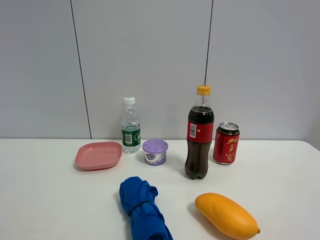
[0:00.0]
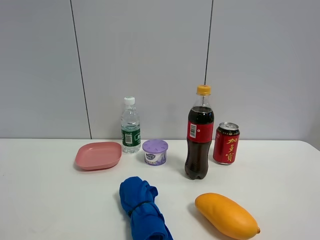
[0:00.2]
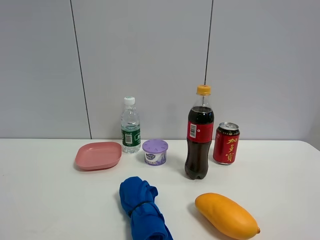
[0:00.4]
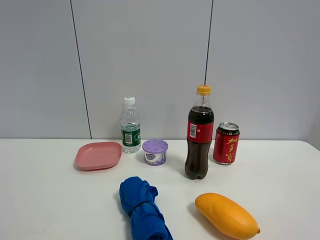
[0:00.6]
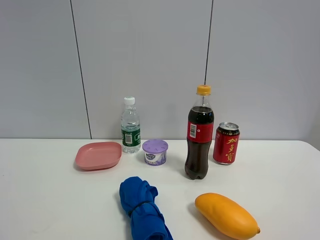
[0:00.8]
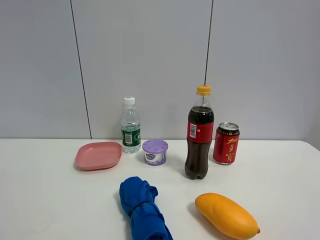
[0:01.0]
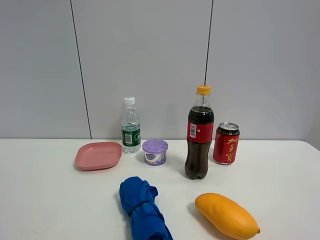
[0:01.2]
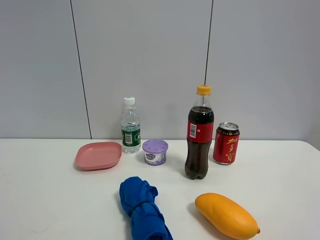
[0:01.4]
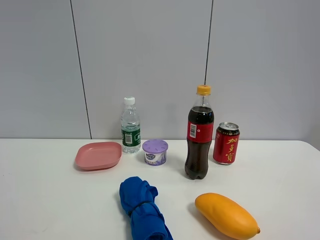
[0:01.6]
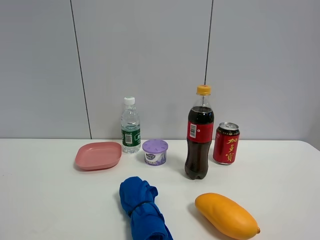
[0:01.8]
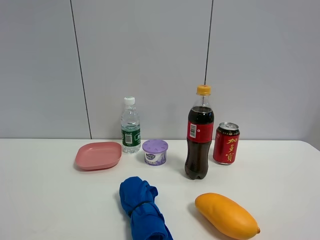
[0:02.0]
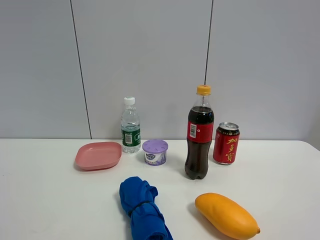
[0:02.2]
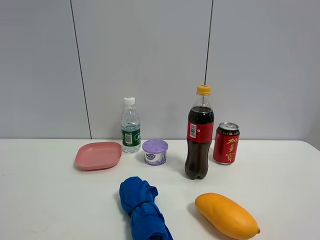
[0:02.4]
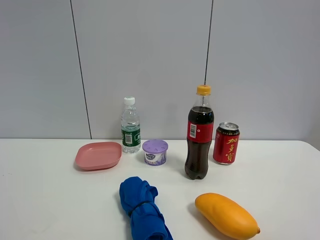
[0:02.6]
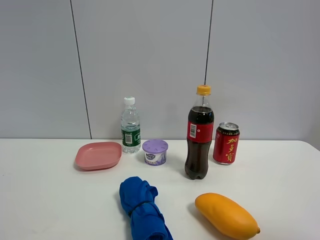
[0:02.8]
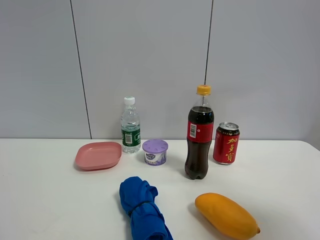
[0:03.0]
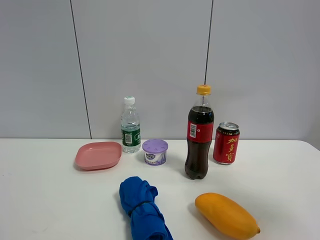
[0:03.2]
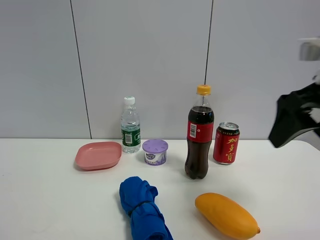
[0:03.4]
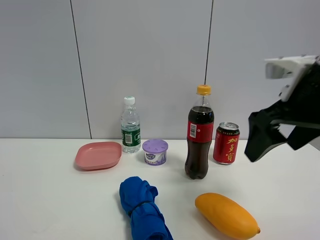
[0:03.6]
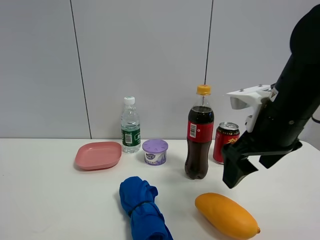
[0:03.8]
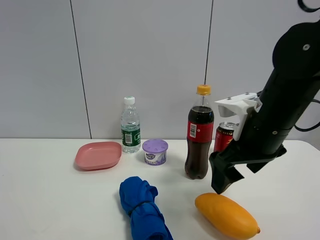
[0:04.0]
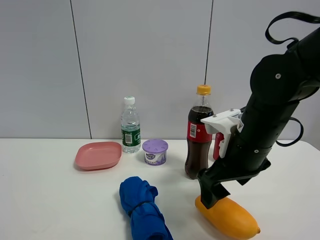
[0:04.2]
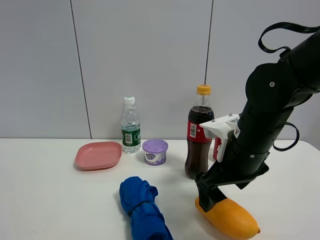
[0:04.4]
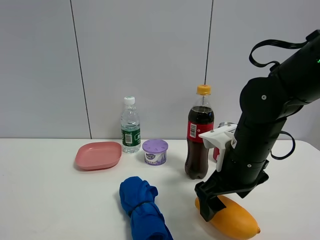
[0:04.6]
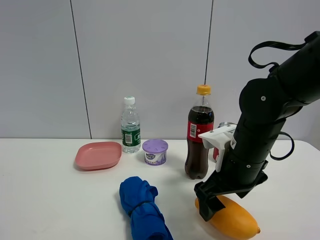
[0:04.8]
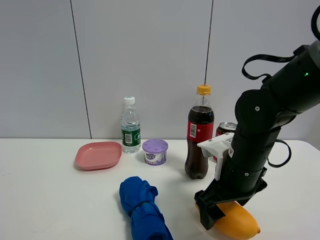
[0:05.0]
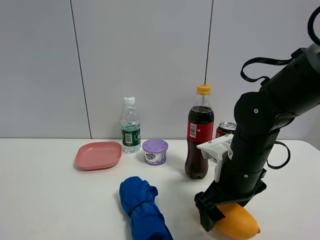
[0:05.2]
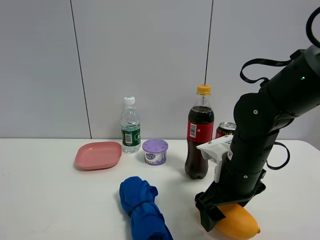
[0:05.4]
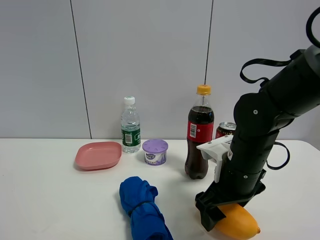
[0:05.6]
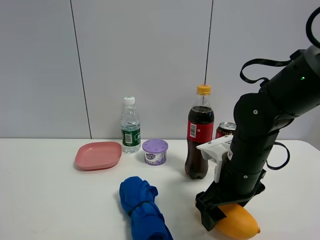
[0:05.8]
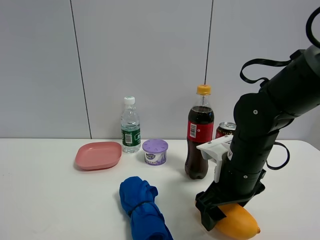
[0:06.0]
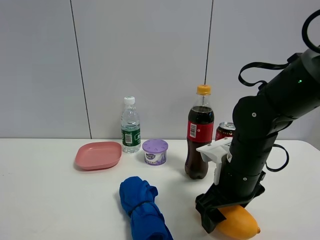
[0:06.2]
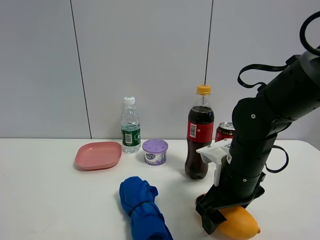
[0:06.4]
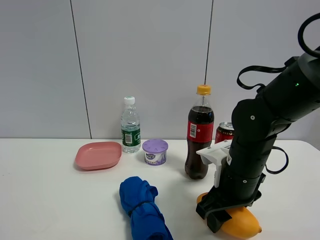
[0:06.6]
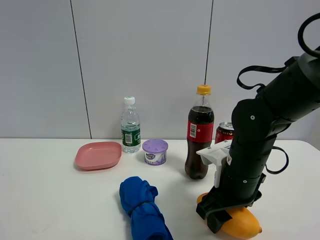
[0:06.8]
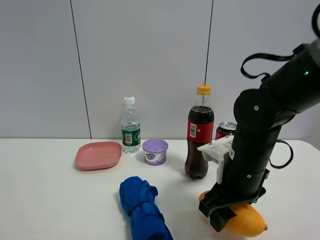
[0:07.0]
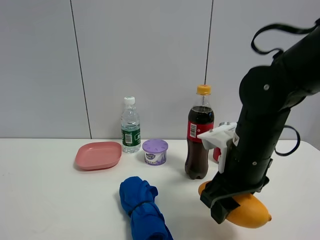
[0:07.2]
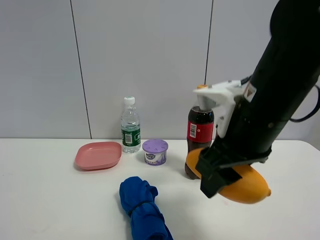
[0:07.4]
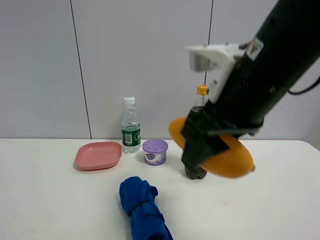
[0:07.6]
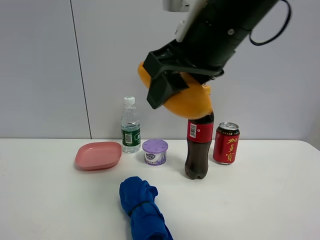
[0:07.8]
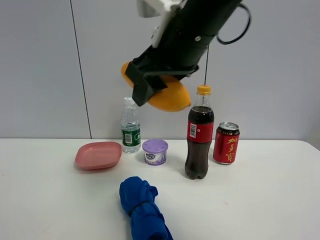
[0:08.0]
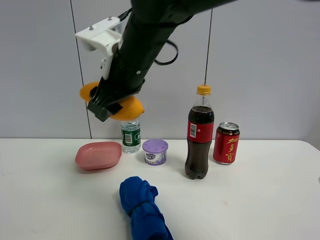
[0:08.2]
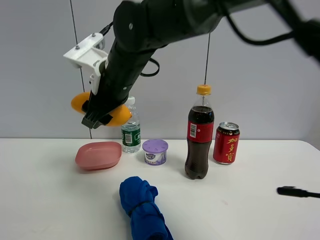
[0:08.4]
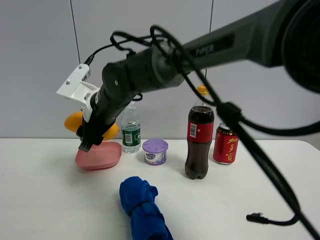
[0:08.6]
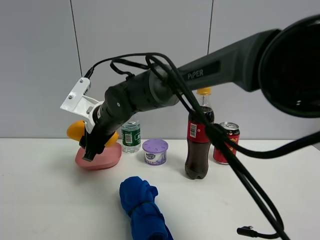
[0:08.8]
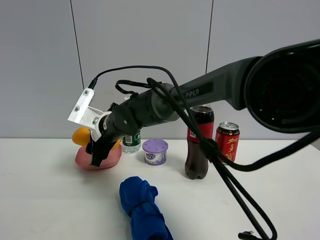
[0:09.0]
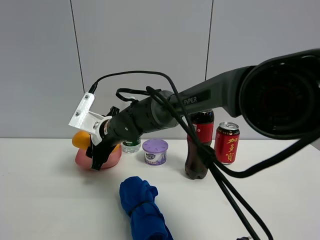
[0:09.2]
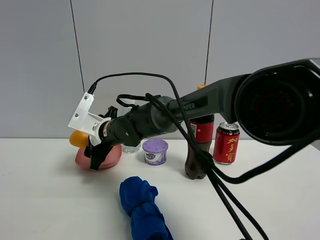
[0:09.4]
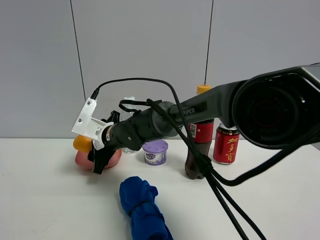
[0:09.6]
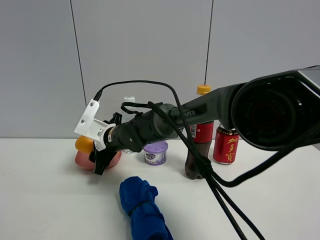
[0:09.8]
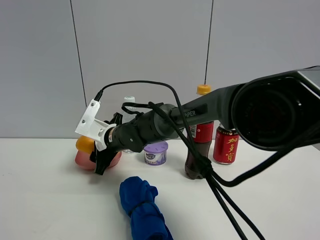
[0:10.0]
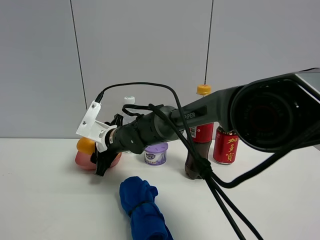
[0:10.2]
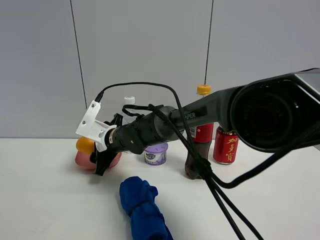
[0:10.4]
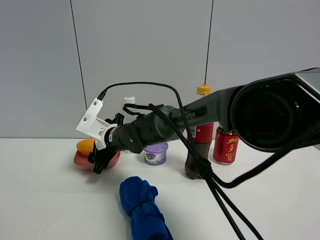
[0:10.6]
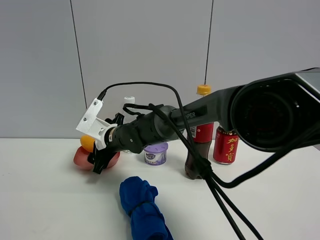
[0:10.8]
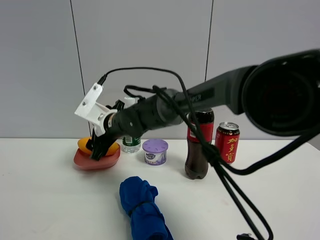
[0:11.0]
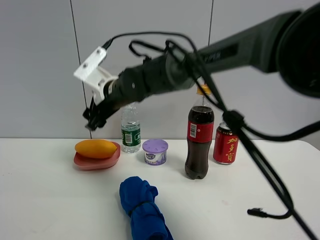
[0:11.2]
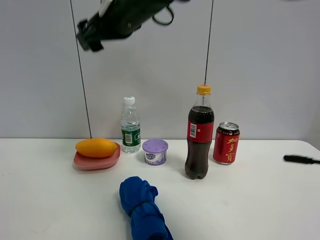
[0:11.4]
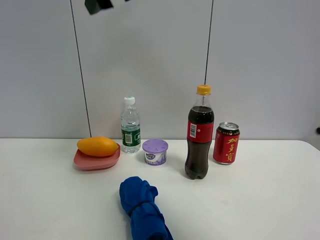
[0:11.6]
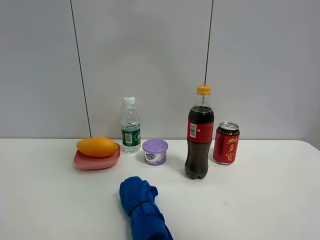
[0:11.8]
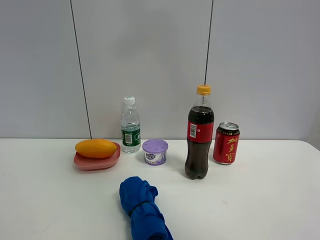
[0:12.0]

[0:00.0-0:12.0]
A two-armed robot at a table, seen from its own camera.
Task of the whole recording: the gripper move the object.
Step, 0.0 to 6.6 s: Grasp the mango with the right gripper.
Step, 6.8 to 10.8 s: Place the mango into the pink plate with the right gripper.
0.0 to 1.6 s: Both grippers stay put.
1.6 to 3.0 s: The right gripper goes some 15 cm forward and upward.
3.0 to 4.4 s: The right gripper goes some 30 cm downward, to the left and forward.
4.4 to 6.0 s: The grippers stay close to where they were, moving slightly.
6.0 to 7.6 s: The right gripper goes approximately 20 cm upward and backward, and closes its fingers.
7.6 to 9.0 s: The right gripper is displaced forward, to the left and downward by approximately 30 cm.
10.4 to 12.0 s: The right gripper heads upward, to the right and backward, covering about 50 cm, and opens.

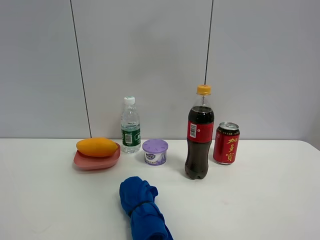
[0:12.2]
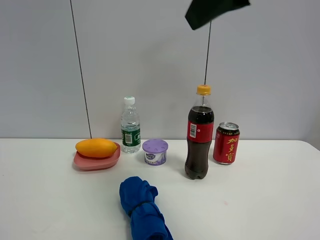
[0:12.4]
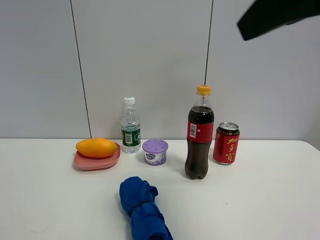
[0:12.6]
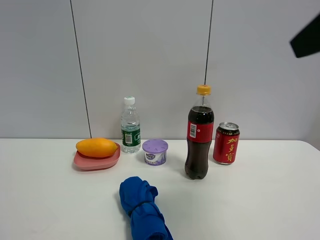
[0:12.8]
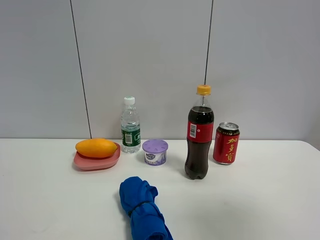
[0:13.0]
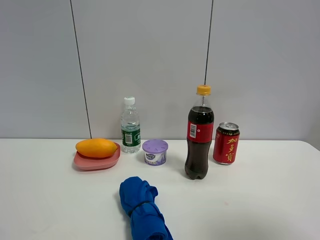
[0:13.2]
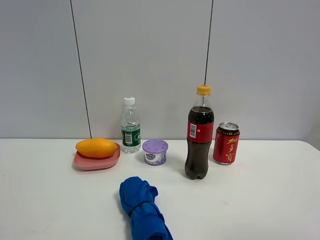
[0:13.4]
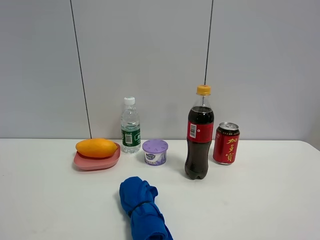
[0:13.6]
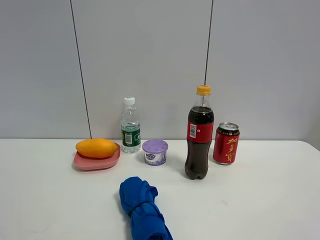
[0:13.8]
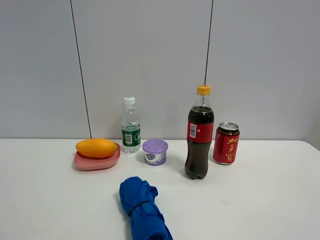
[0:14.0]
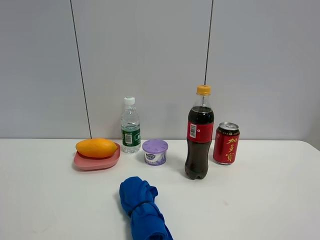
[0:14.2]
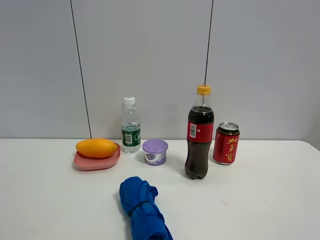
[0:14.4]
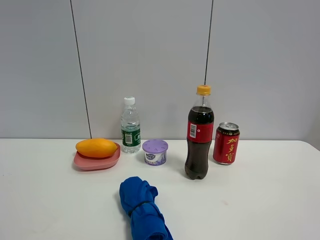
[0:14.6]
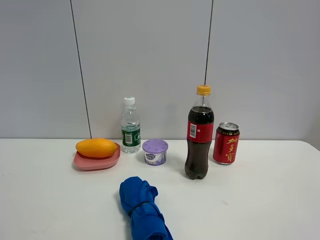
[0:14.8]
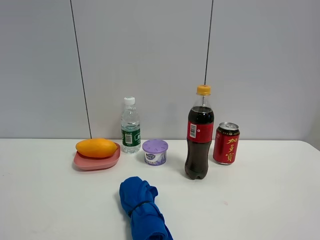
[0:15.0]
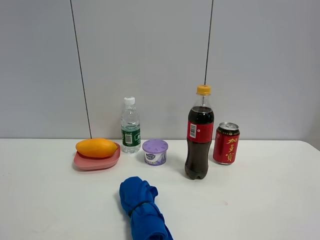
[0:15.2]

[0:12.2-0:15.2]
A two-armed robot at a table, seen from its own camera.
Task of the whole recording: the gripper move the object.
12.2 to 13.8 s: The right gripper is displaced backward, to the right and downward by approximately 35 cm.
13.8 to 15.2 s: Both grippers stay about where they are.

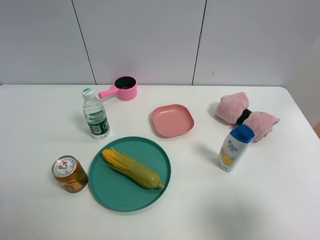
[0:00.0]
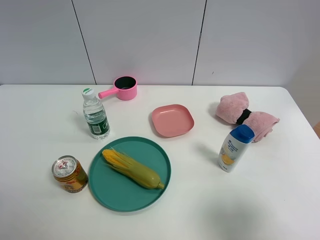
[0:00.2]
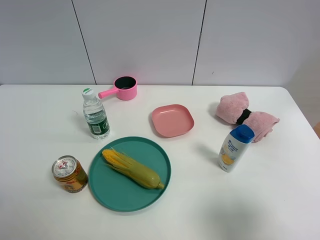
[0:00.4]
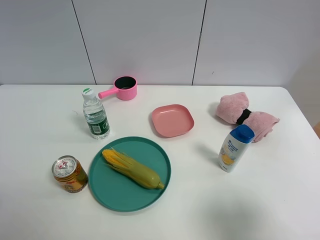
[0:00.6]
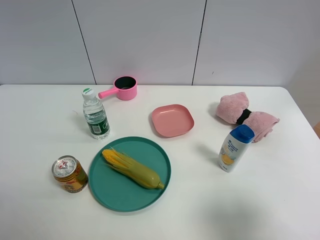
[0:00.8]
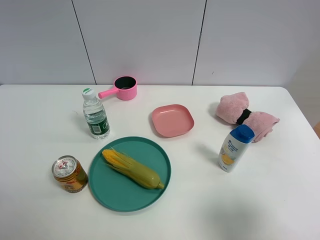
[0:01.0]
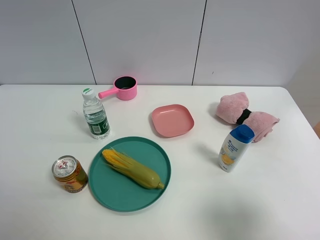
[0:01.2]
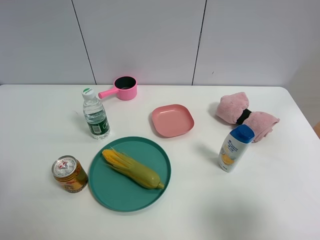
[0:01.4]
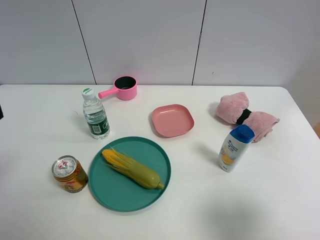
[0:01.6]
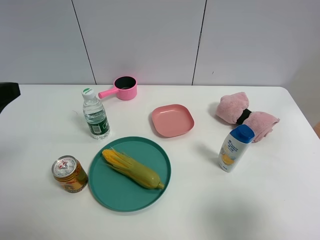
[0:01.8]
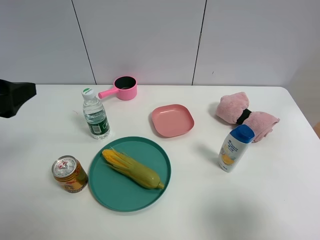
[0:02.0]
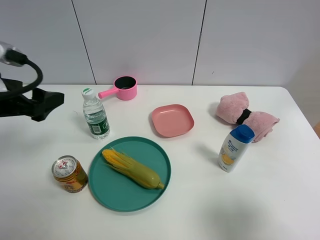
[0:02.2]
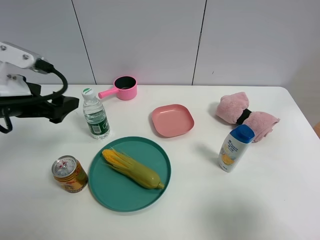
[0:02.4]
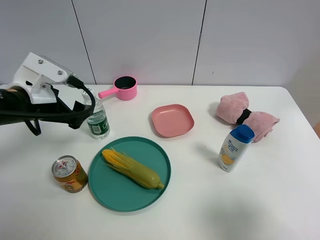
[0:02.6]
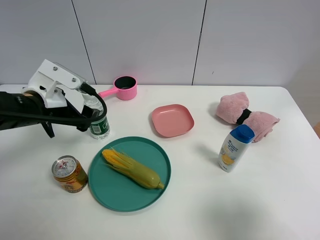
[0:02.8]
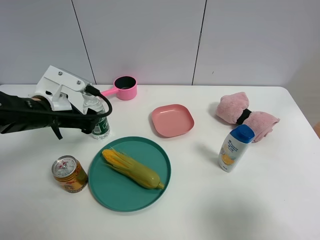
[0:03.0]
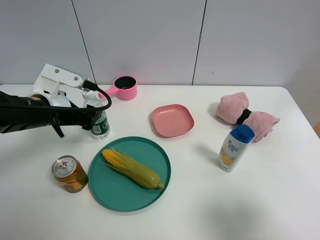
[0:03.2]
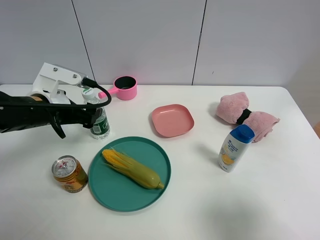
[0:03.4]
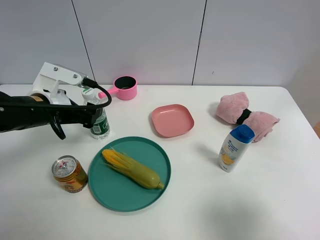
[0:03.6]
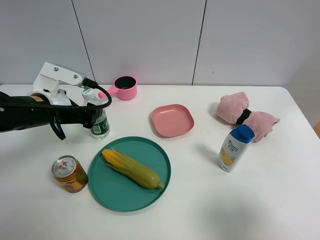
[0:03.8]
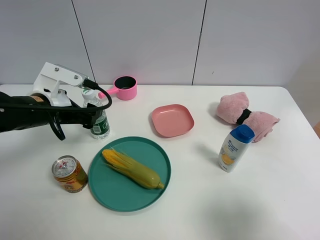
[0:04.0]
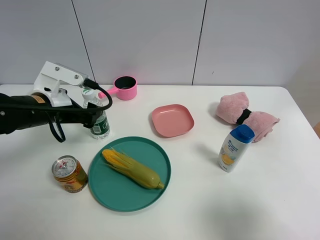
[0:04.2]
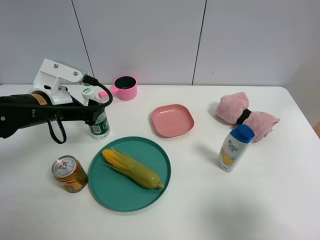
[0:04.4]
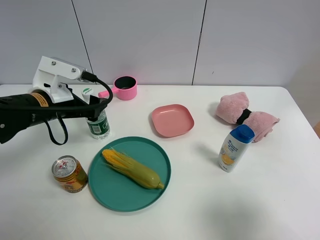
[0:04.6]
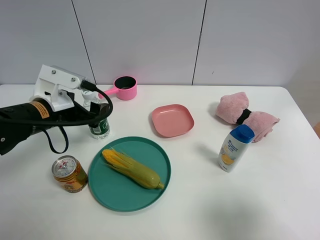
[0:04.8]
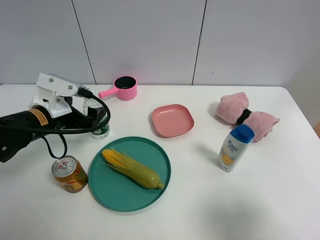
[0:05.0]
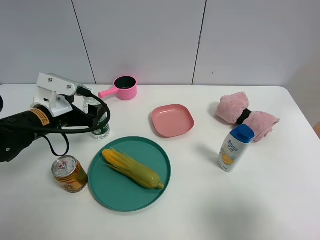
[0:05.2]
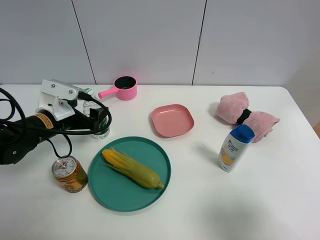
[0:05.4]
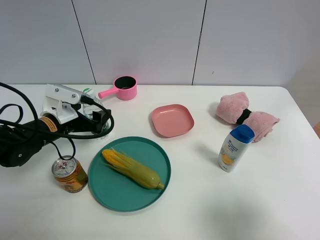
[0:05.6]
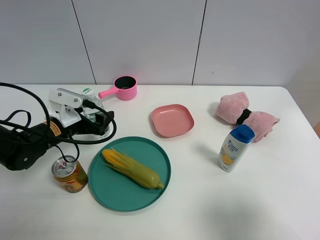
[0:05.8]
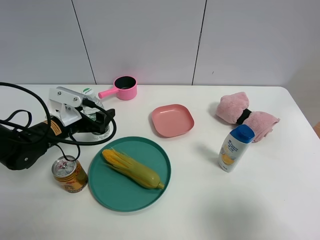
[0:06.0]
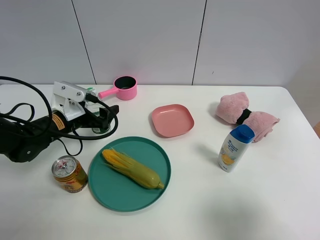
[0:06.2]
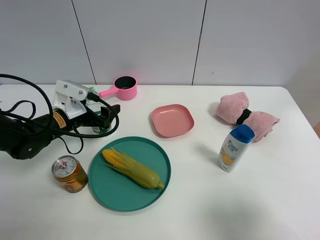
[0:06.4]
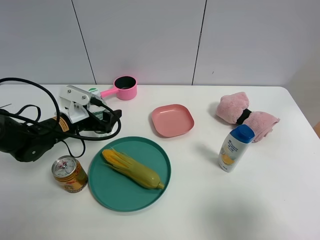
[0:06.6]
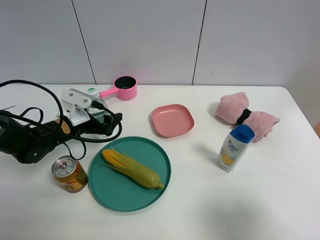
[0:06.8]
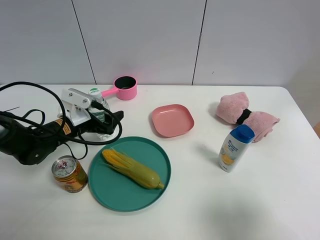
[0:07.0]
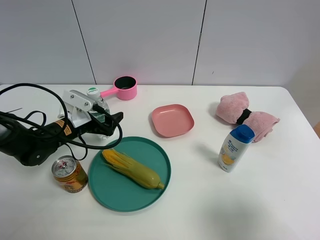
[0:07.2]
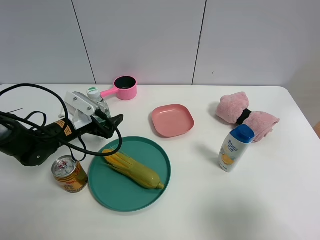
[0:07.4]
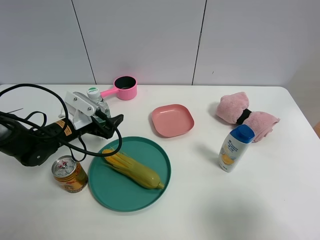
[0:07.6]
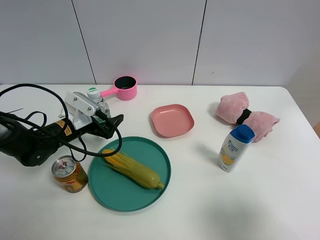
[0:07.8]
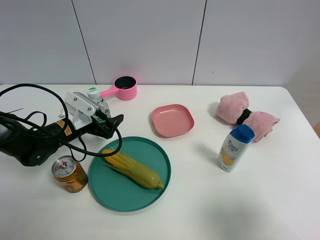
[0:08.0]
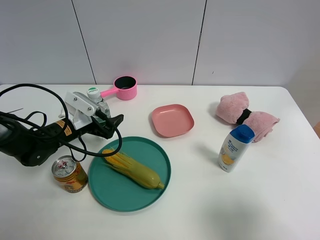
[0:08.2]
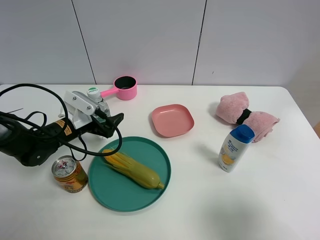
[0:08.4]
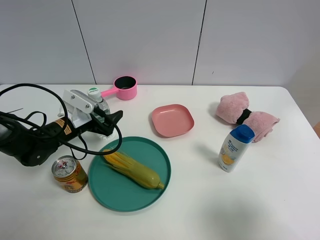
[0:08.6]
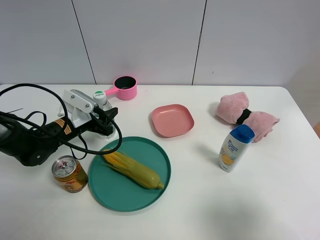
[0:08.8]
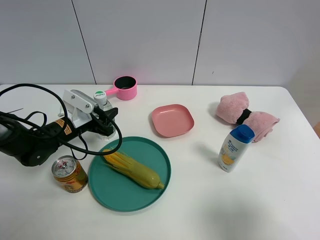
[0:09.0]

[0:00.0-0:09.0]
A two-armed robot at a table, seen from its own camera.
Task of the whole recording: the gripper move the object.
Step, 0.0 to 8.8 s: Grasp the YiBao mineral water with the left gripper.
1.6 to 3.0 s: The left gripper moves forward, downward and to the right, roughly 20 cm.
3.0 to 4.4 s: The grippers move only a little.
4.4 to 6.0 s: The left gripper is displaced downward by some 10 cm.
6.0 to 7.6 s: The grippers move only a little.
7.6 to 9.0 s: The left gripper closes.
